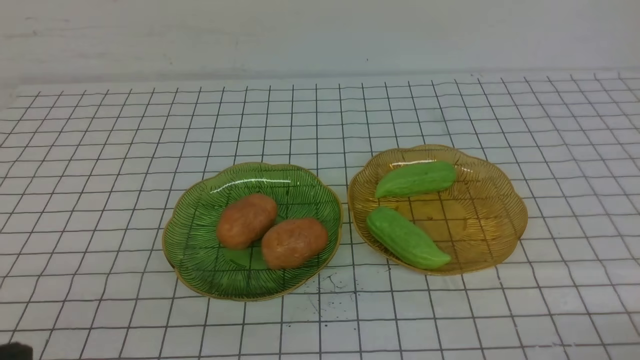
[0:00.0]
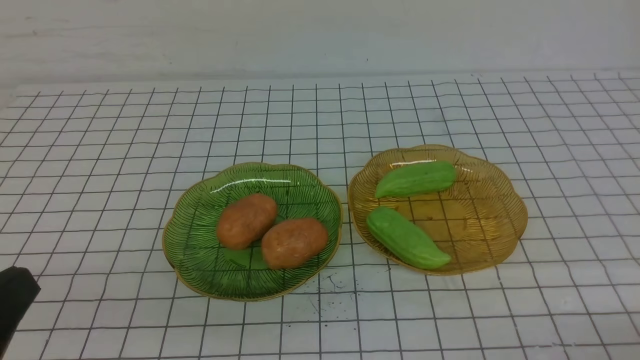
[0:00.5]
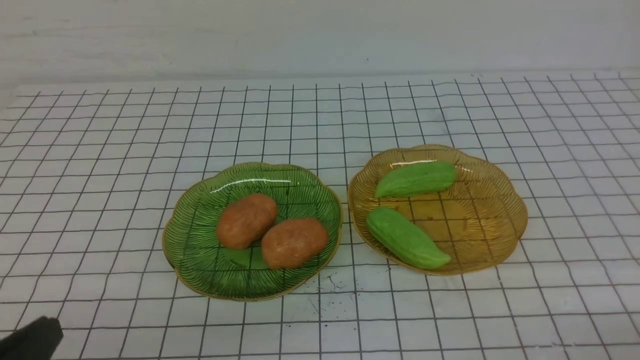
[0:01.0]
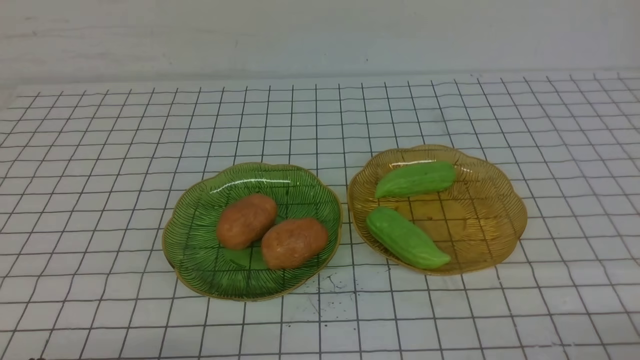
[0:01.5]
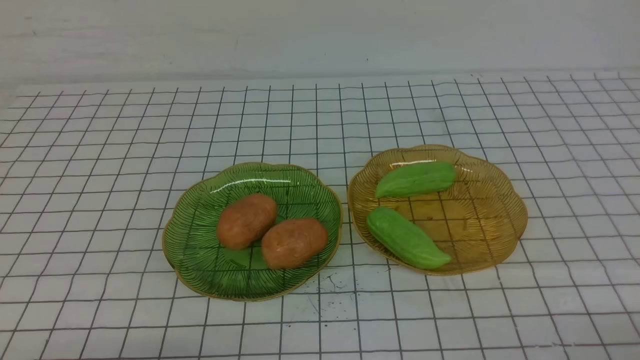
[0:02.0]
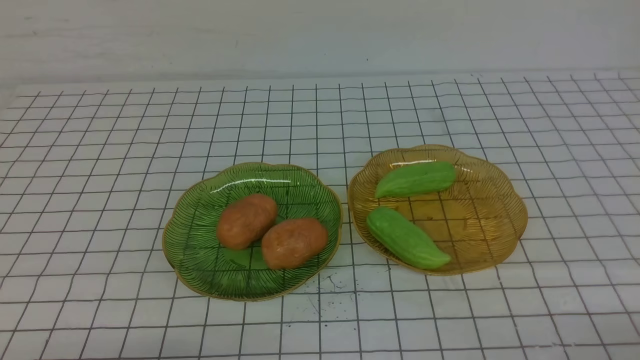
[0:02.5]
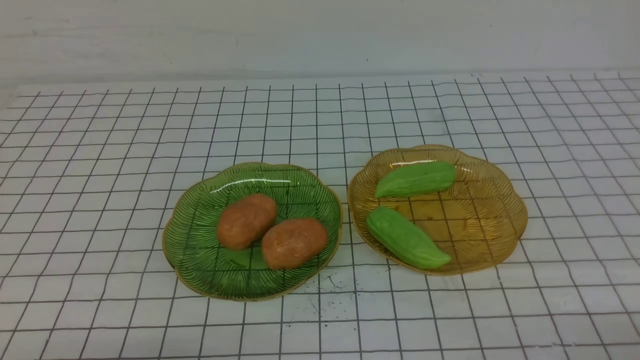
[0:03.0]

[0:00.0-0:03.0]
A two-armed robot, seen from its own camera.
0:01.5 to 0:03.0: Both grippers stay put.
